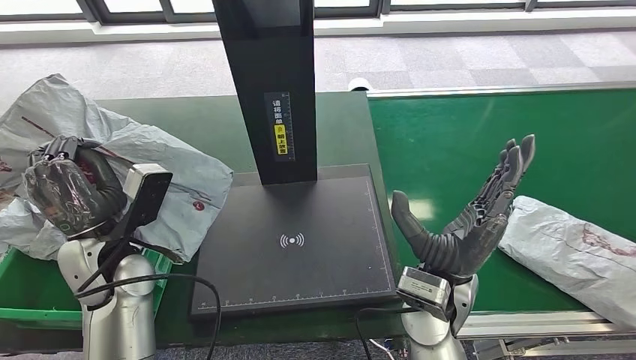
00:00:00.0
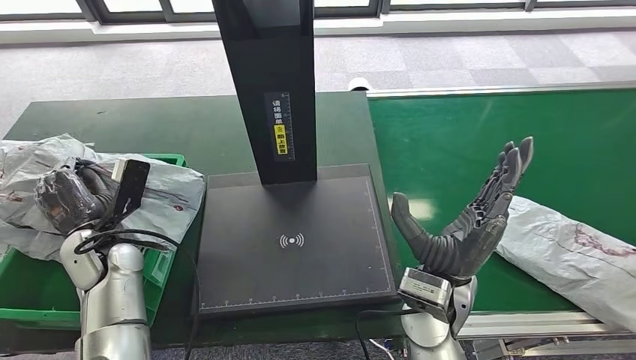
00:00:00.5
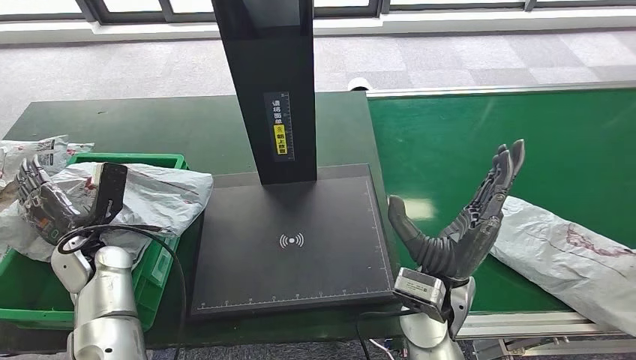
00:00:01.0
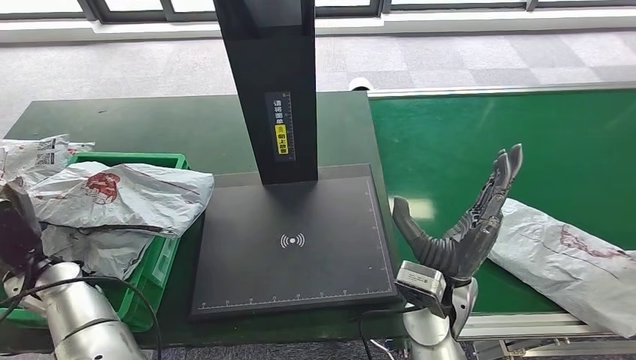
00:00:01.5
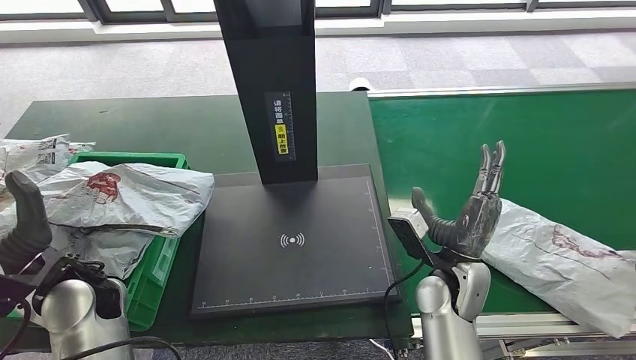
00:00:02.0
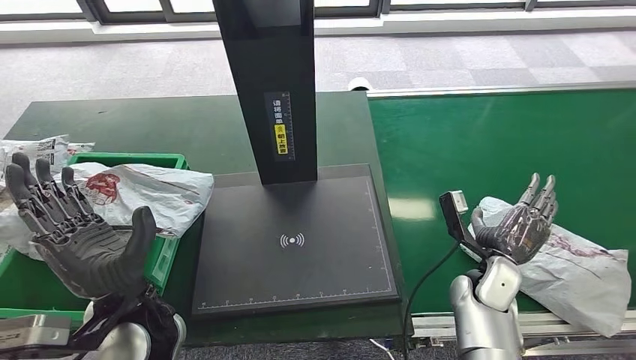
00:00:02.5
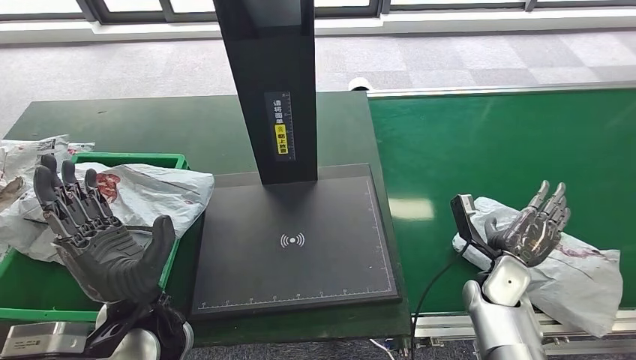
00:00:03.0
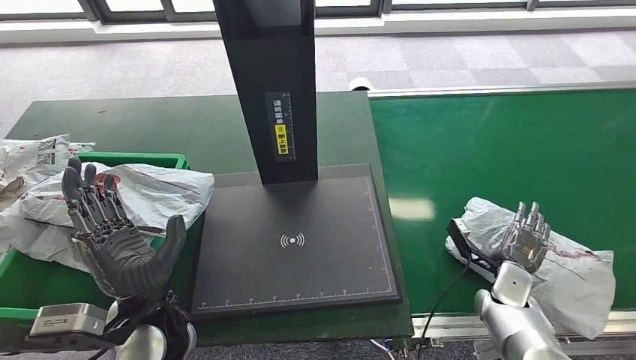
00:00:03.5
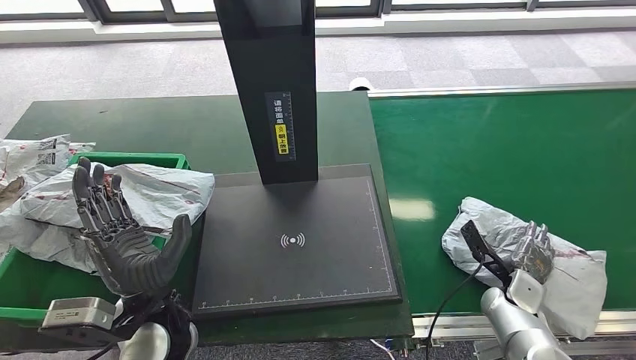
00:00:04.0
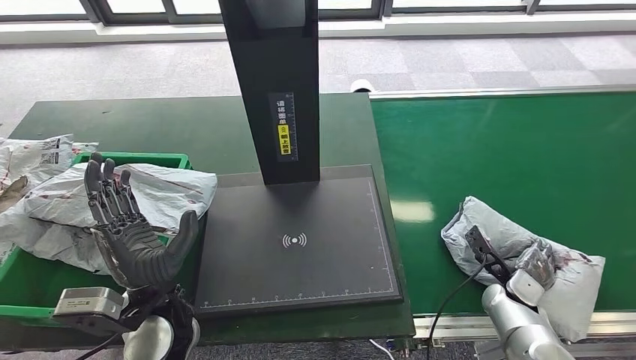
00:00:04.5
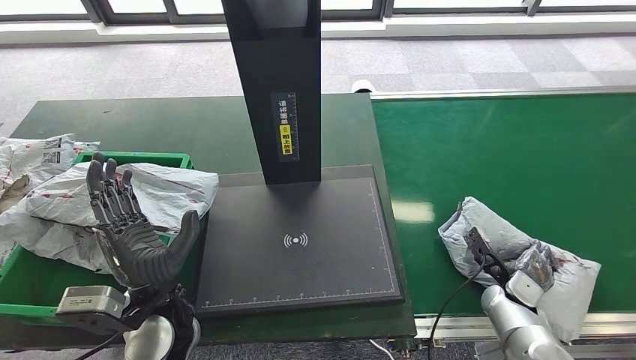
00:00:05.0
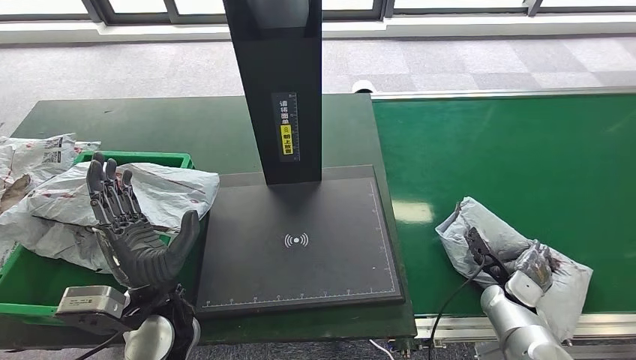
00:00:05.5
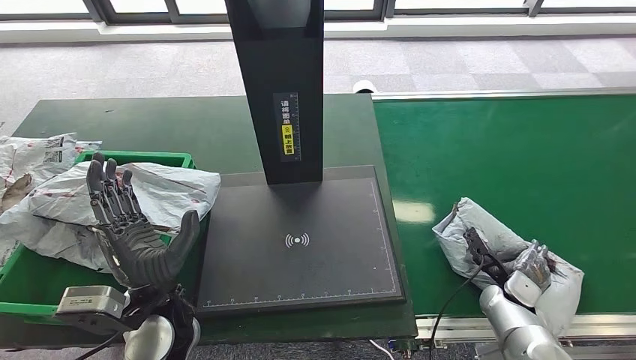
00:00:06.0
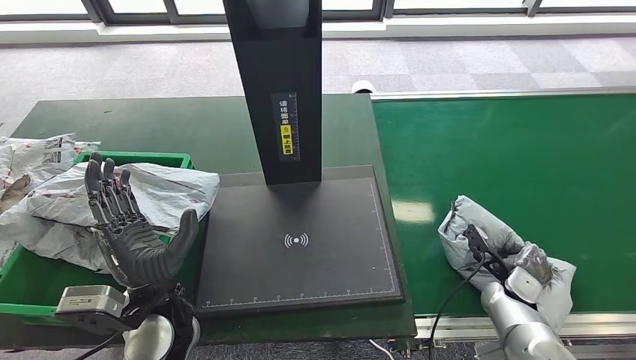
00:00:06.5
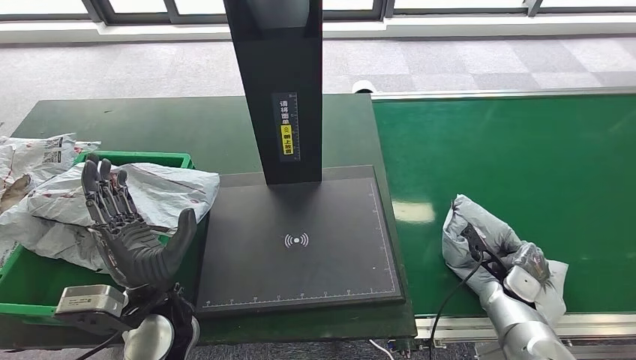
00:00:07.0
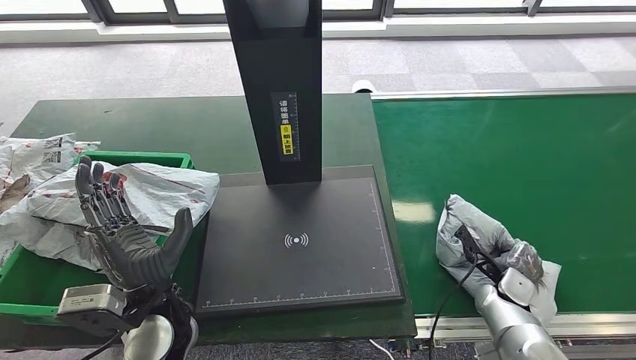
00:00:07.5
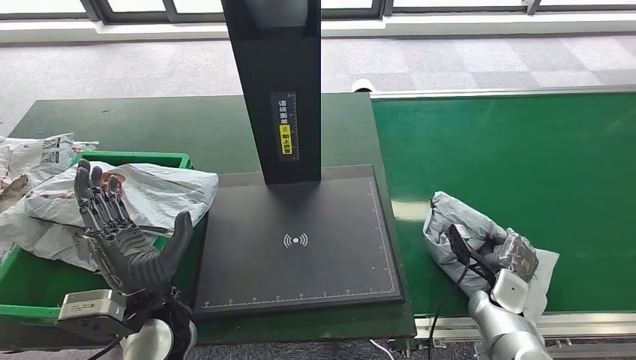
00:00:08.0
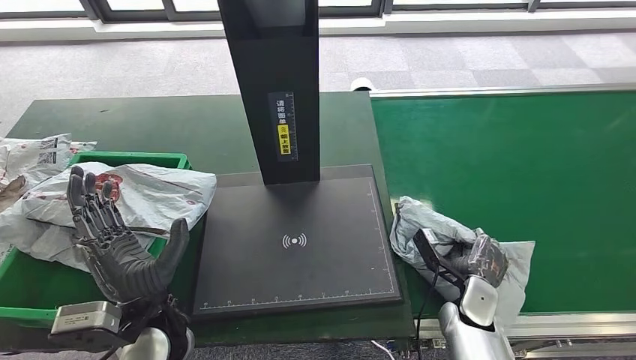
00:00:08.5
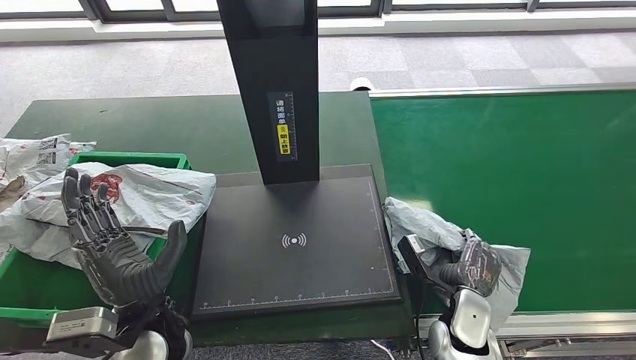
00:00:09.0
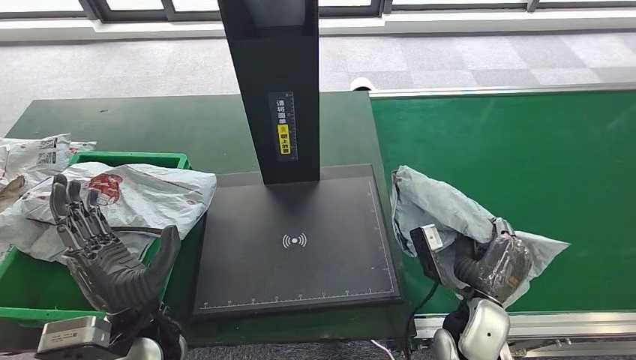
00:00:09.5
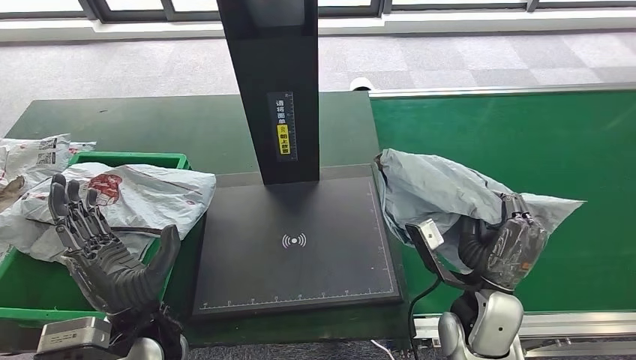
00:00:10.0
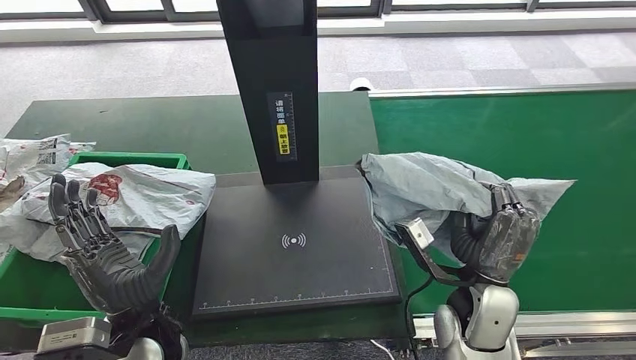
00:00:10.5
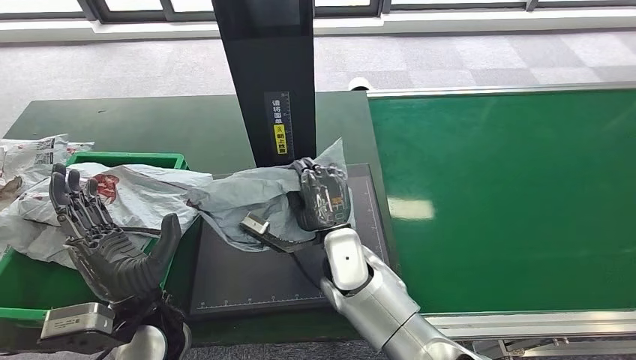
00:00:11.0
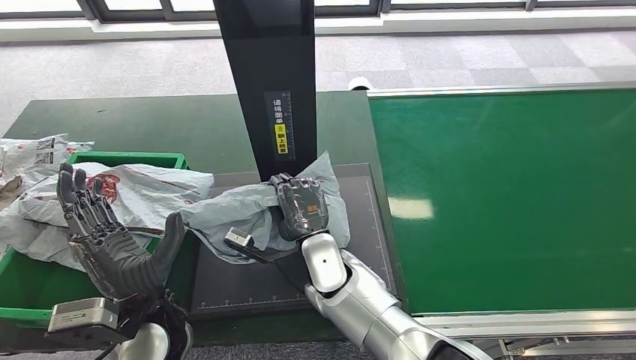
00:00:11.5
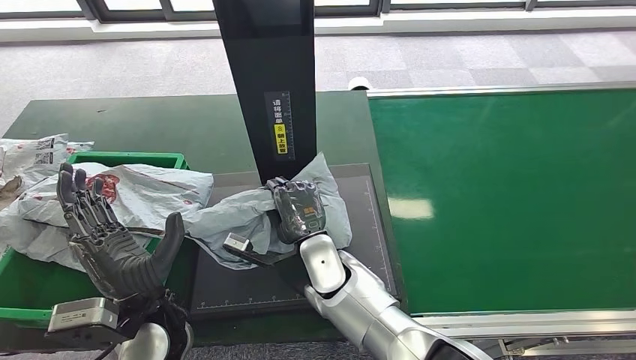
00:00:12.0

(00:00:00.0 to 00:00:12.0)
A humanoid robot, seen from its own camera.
Step, 00:00:00.0 - 00:00:02.5: Place the parcel into the delivery box.
Step, 00:00:08.5 - 00:00:10.0: Pick up the parcel from the conveyor belt.
00:00:02.0 - 00:00:04.0: The left hand travels to the right by roughly 10 cm. Meanwhile the right hand travels to the right and downward by some 20 cm.

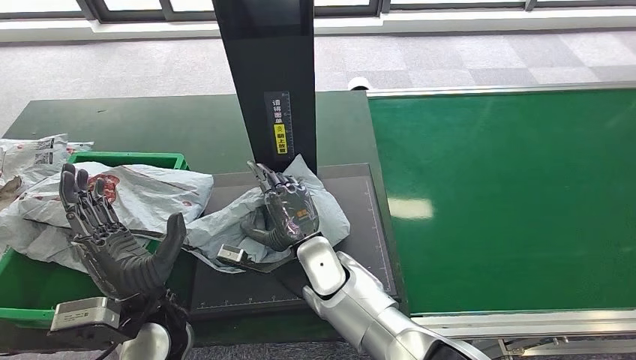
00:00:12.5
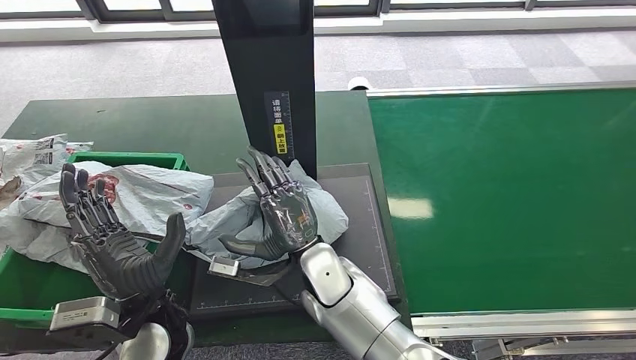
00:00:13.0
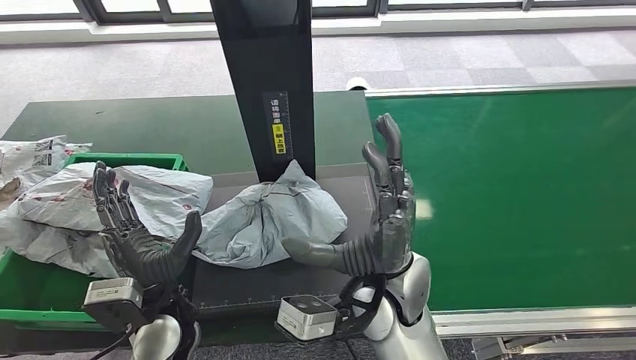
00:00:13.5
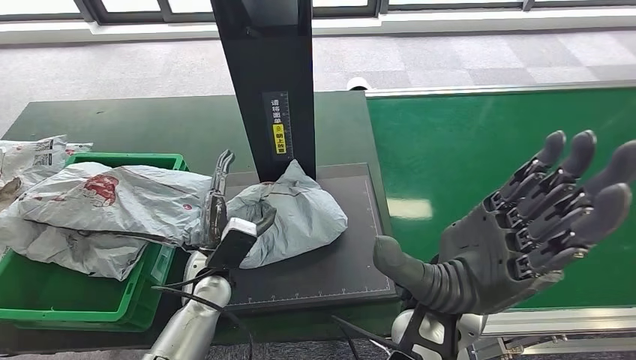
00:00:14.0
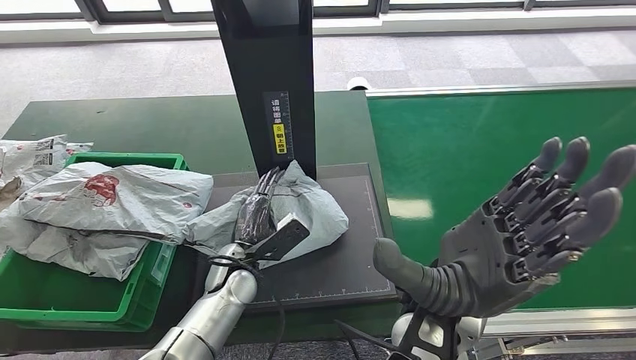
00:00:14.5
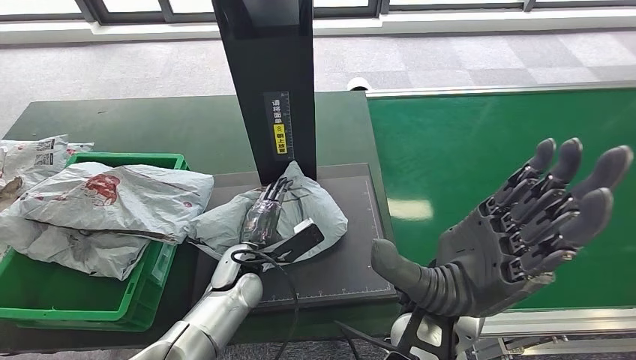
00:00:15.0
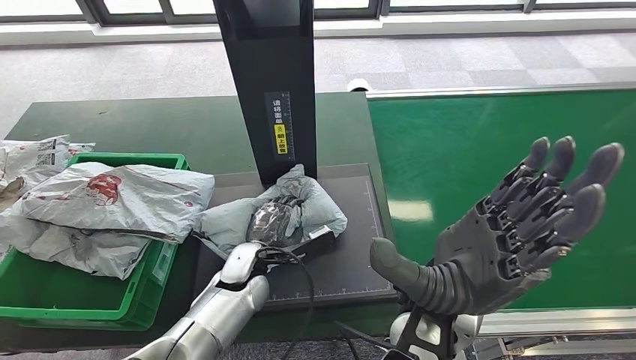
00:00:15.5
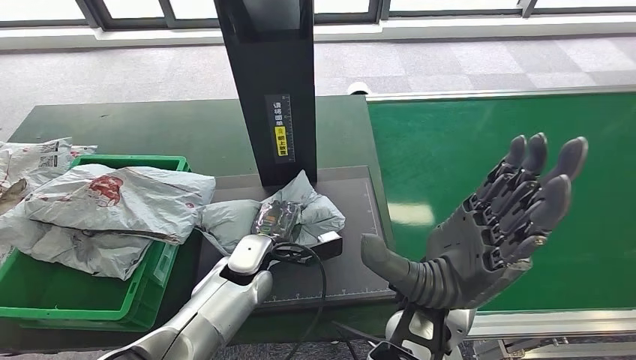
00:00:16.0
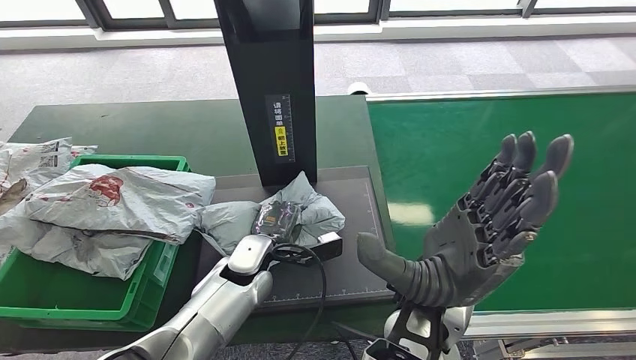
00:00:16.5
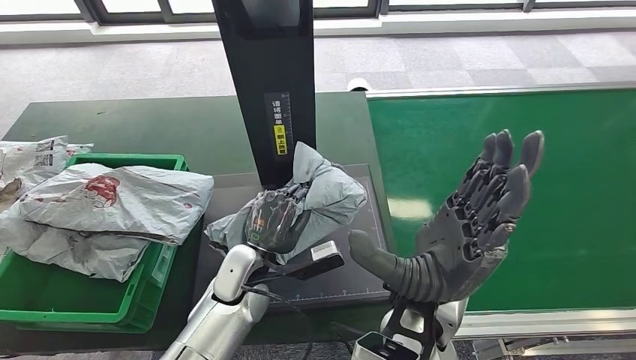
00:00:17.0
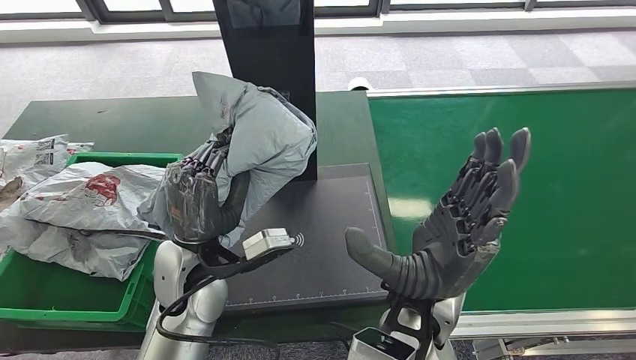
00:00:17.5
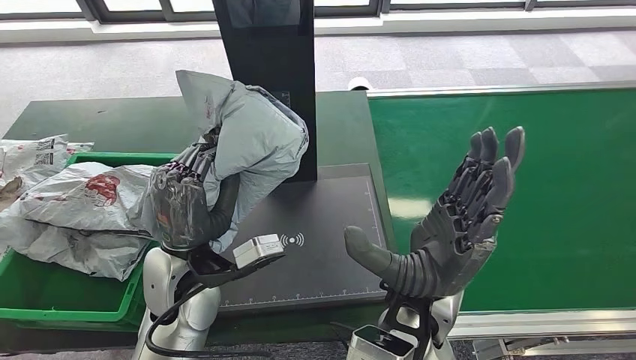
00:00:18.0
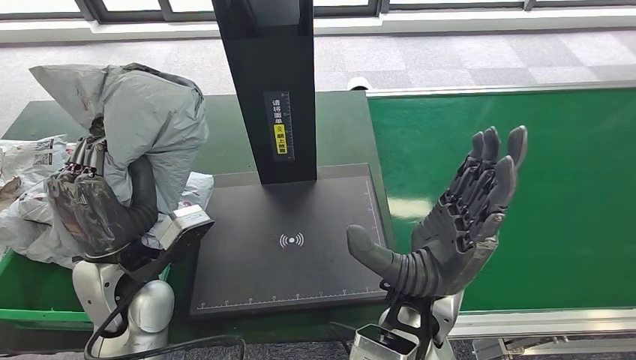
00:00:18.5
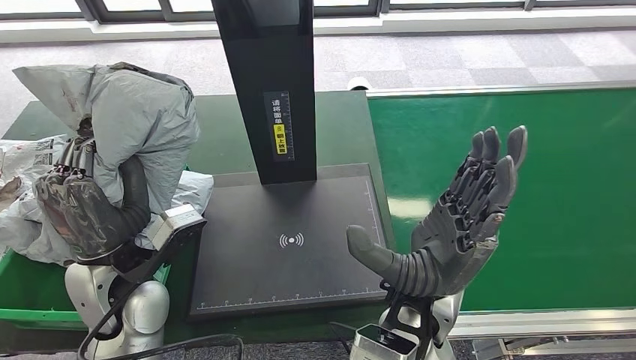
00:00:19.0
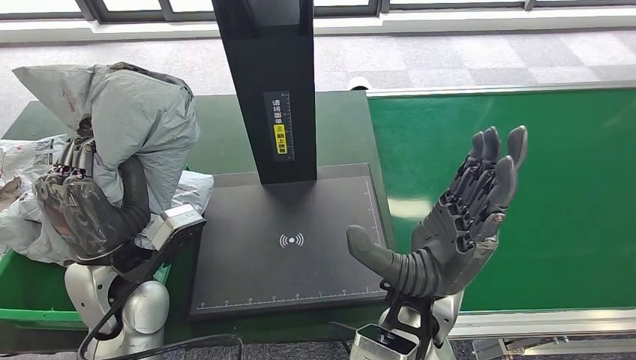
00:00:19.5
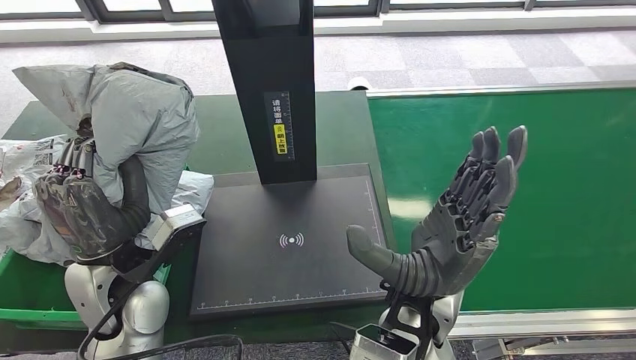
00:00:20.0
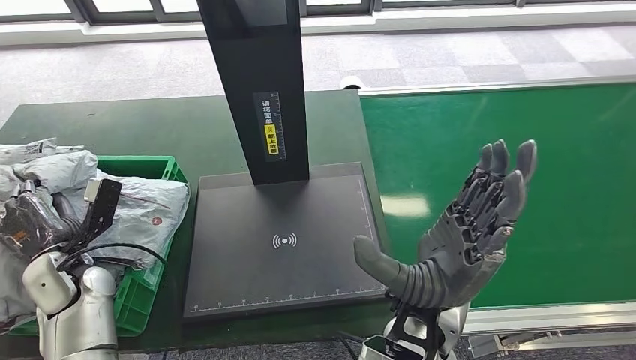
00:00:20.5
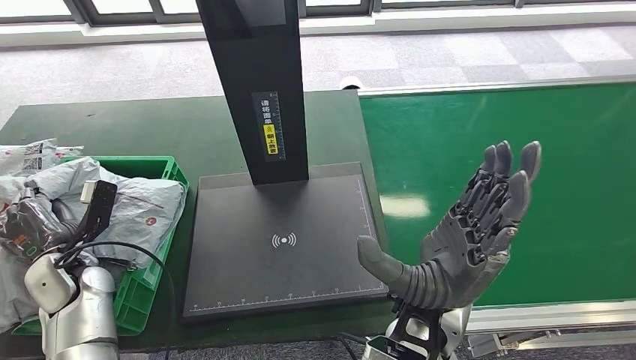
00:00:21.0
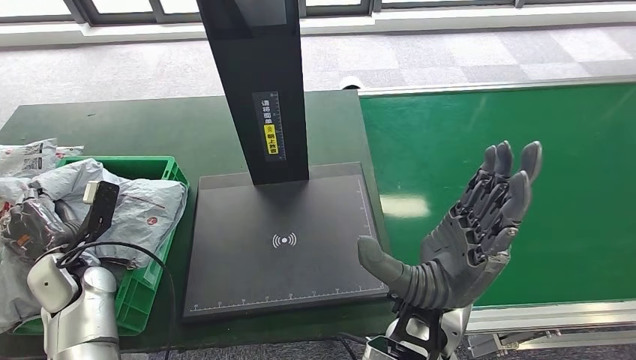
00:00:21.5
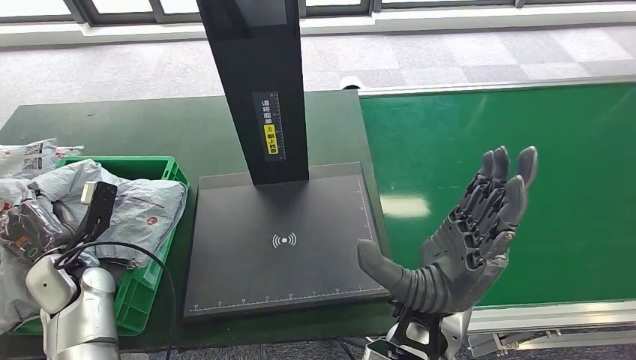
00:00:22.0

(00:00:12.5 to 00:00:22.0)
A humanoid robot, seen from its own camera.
Step, 00:00:16.0 - 00:00:18.0: Pick up the parcel from the inbound machine.
Step, 00:00:18.5 - 00:00:22.0: Place the parcel into the delivery box.
00:00:12.5 - 00:00:14.5: The left hand shifts some 15 cm downward, to the right and forward, while the right hand travels upward, to the right and backward by some 20 cm.
